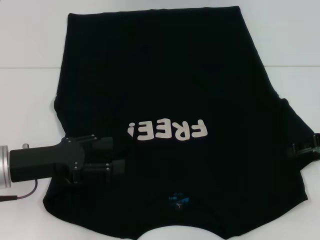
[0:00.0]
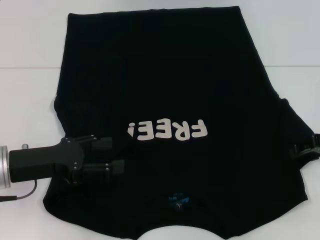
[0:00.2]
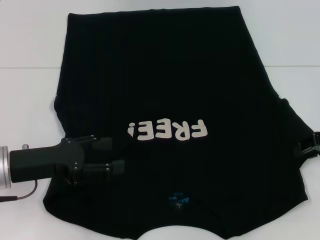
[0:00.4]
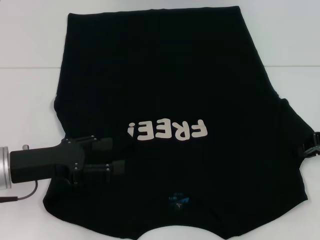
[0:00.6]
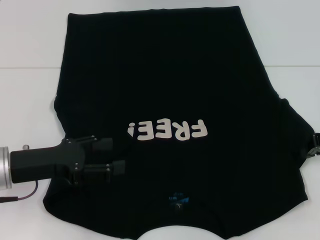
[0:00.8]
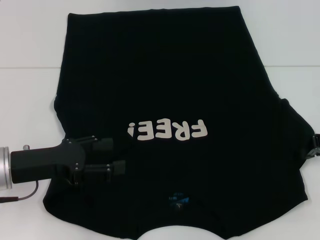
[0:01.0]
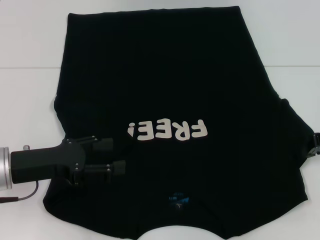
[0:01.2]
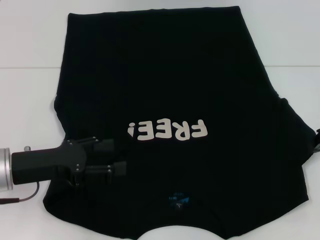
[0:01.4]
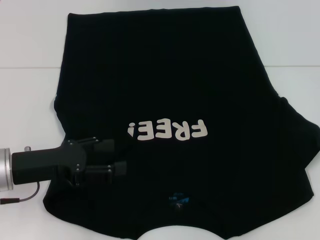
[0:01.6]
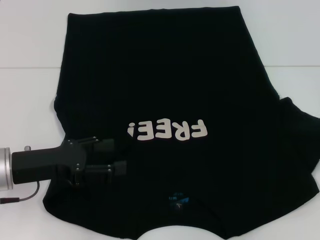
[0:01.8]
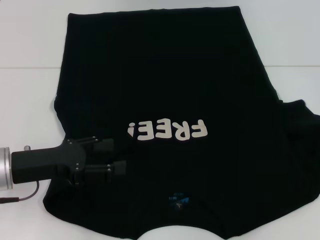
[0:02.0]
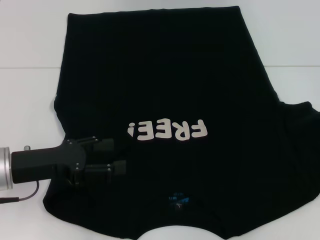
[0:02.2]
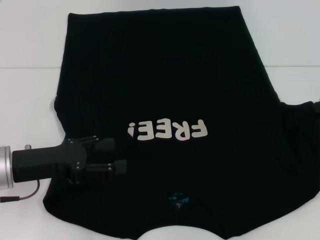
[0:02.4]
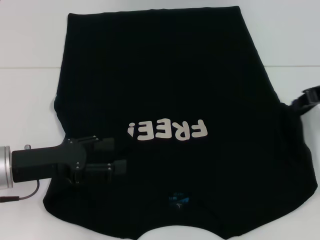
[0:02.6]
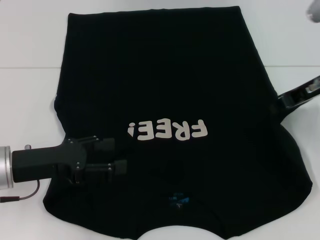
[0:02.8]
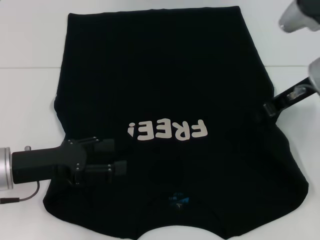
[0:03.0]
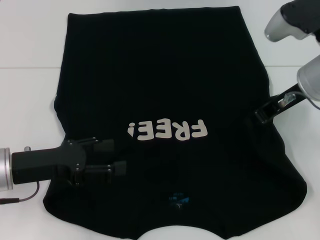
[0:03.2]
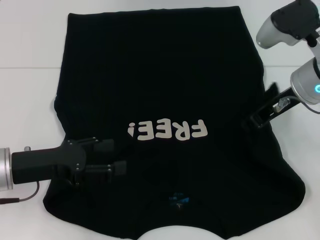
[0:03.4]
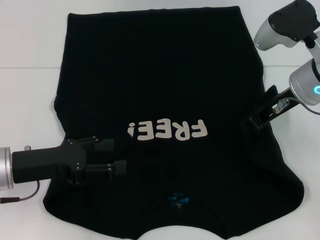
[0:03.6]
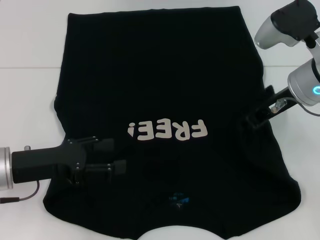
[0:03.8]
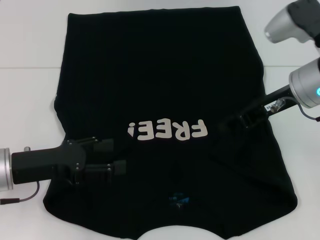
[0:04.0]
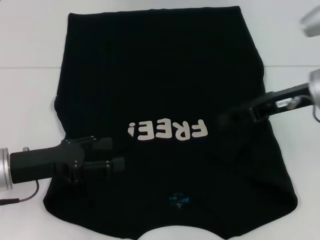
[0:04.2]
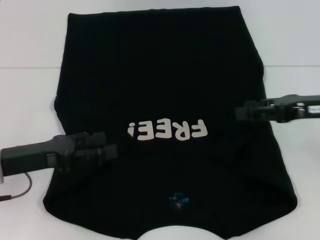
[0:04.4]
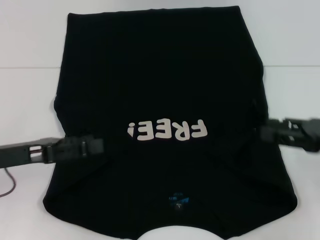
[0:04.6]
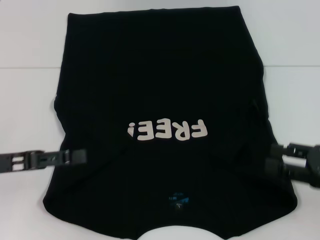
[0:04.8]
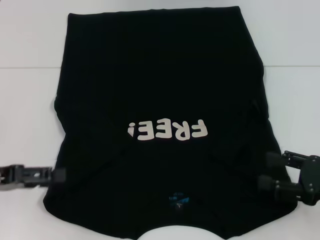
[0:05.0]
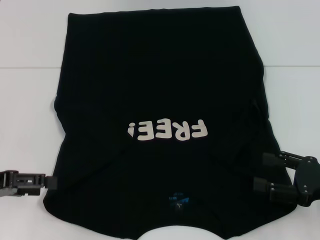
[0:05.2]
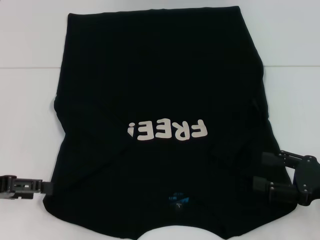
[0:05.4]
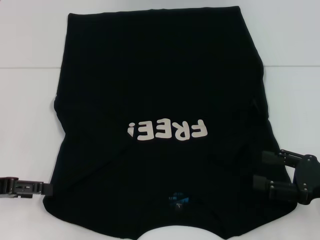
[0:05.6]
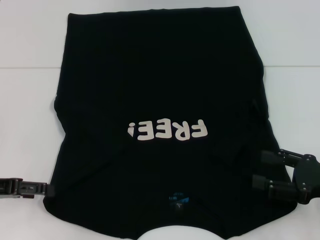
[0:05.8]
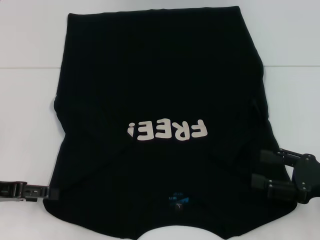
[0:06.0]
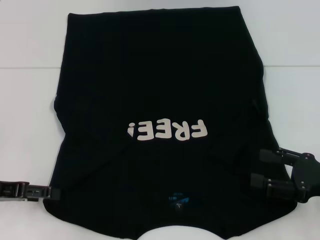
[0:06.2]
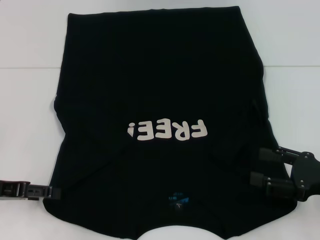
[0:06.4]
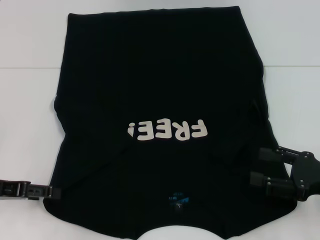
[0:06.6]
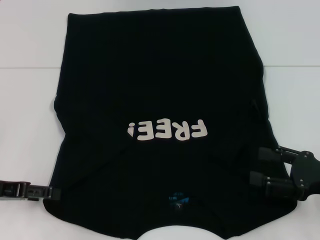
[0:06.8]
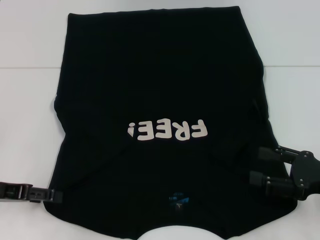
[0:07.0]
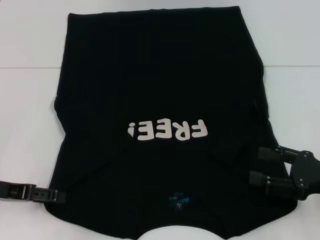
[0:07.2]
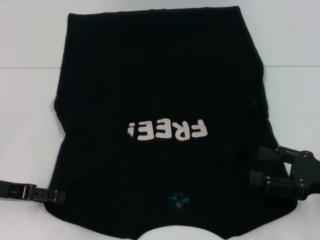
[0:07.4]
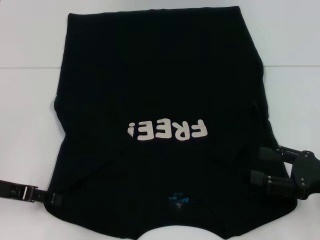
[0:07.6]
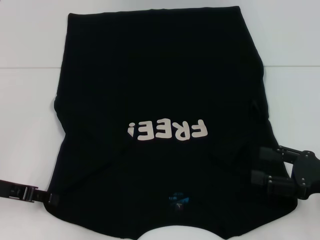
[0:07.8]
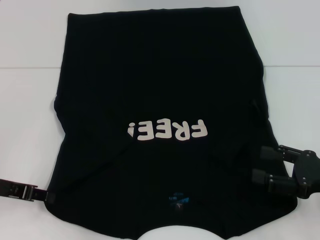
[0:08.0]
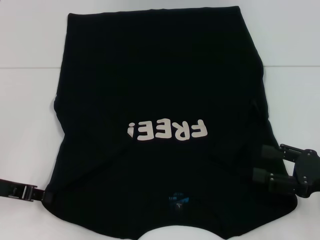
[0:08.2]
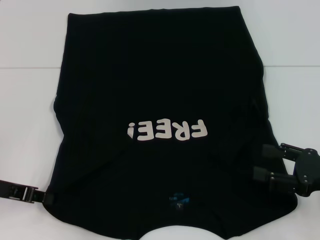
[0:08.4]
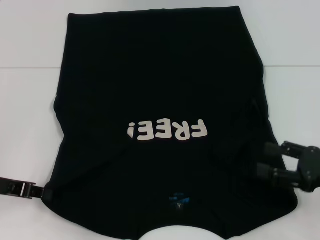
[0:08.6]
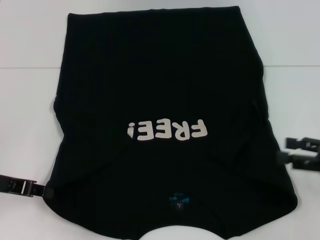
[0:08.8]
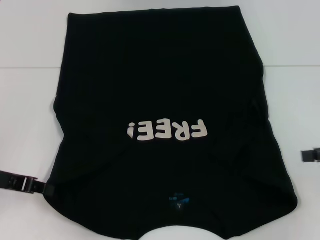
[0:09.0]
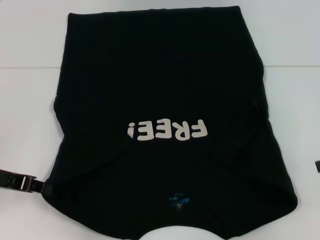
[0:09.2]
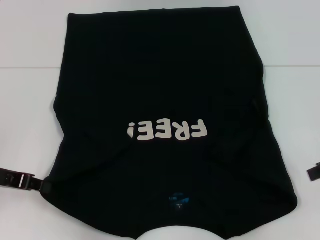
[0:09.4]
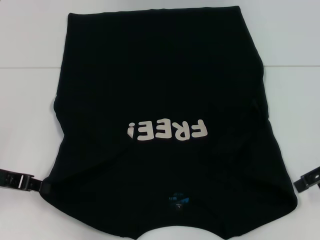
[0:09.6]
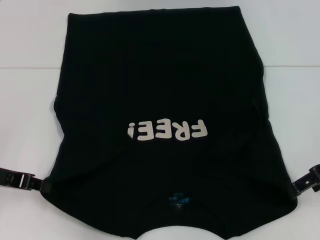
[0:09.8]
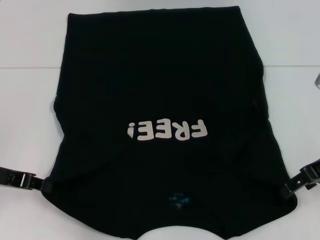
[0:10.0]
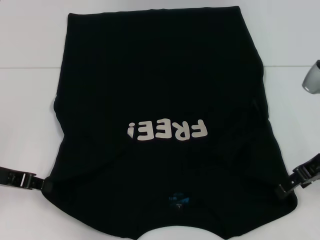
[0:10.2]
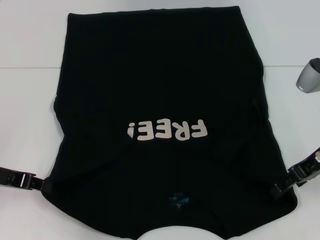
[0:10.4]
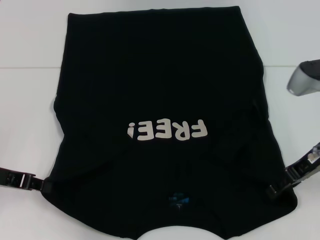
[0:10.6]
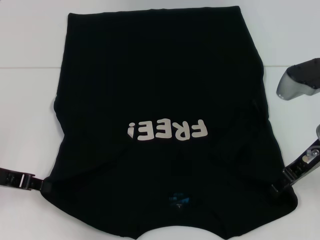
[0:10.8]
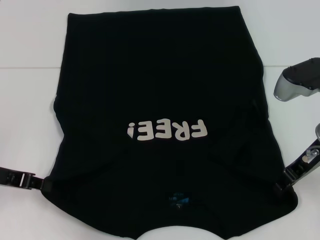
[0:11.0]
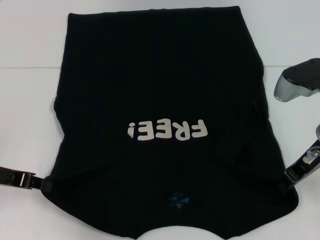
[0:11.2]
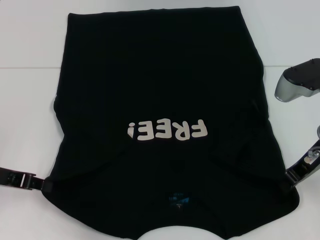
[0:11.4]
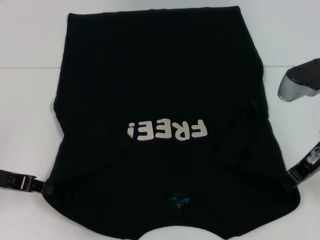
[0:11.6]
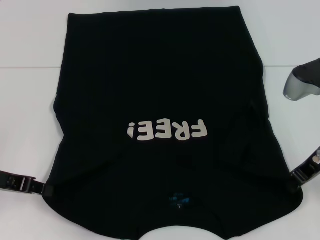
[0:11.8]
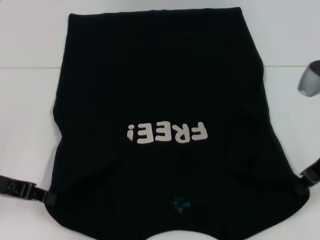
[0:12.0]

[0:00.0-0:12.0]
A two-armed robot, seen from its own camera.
Step, 0.0 to 4.2 s: Fold the bottom right sleeve with your right hand.
Step, 4.4 to 8.4 s: Grab the bottom left corner with your left hand.
Step, 8.6 to 11.8 s: Grab the bottom right corner with your right hand.
0.0 to 1.6 s: The right gripper closes its fingers.
1.6 to 3.0 s: The right gripper travels to the left and upward by approximately 15 cm.
3.0 to 4.4 s: The right gripper shifts approximately 5 cm to the right and backward, and opens.
4.4 to 6.0 s: The left gripper travels to the left by some 5 cm. Meanwhile the right gripper heads backward and downward, covering some 15 cm, and opens.
6.0 to 7.6 s: The grippers make only small movements.
7.6 to 9.0 s: The left gripper closes its fingers; the right gripper heads upward and to the right, covering roughly 10 cm.
9.0 to 10.4 s: The right gripper travels to the left and forward by about 15 cm.
10.4 to 12.0 s: The right gripper closes its fingers.

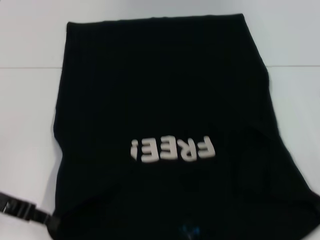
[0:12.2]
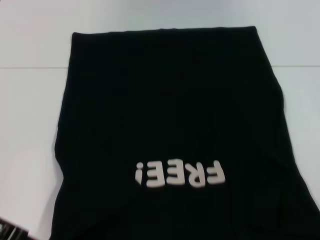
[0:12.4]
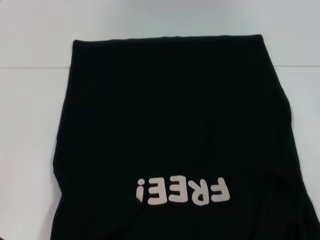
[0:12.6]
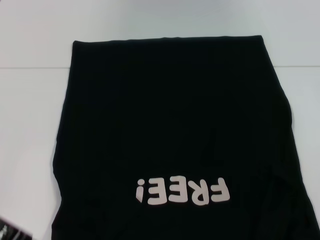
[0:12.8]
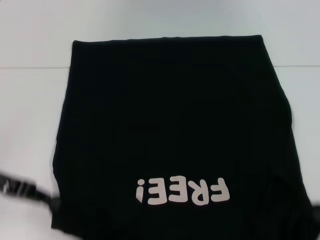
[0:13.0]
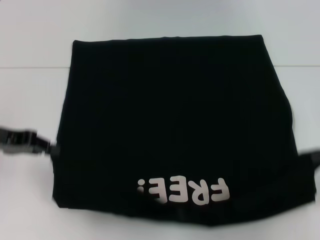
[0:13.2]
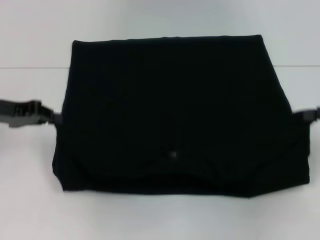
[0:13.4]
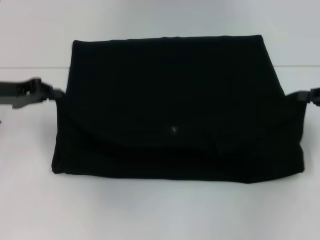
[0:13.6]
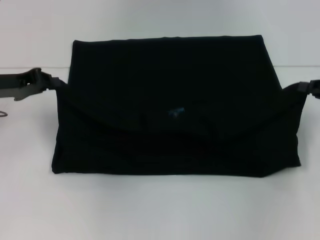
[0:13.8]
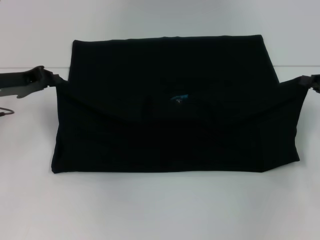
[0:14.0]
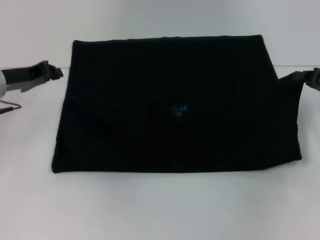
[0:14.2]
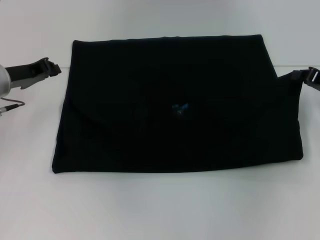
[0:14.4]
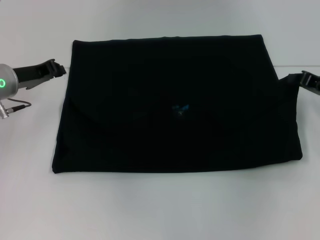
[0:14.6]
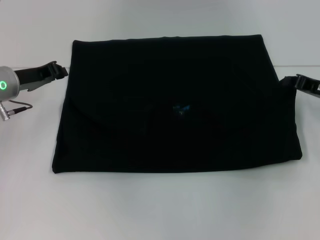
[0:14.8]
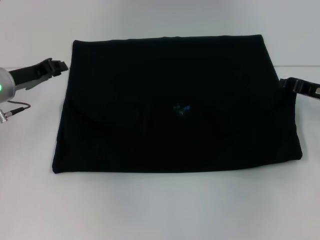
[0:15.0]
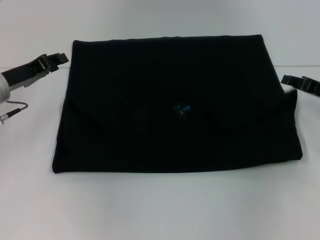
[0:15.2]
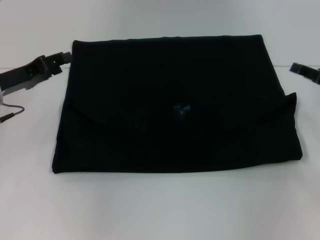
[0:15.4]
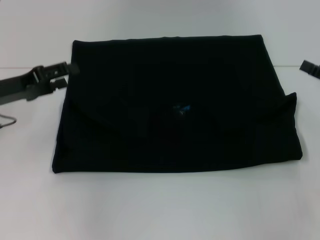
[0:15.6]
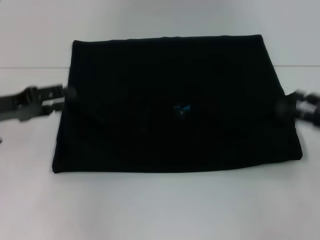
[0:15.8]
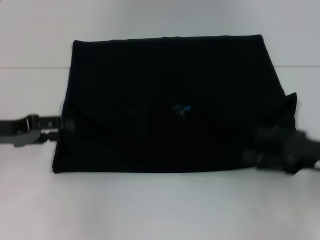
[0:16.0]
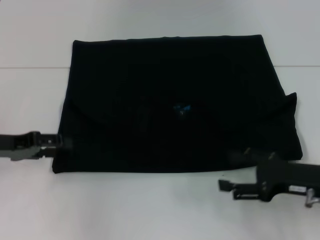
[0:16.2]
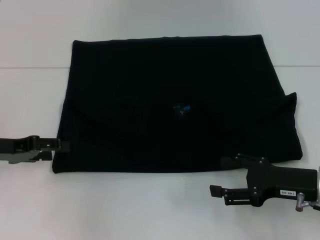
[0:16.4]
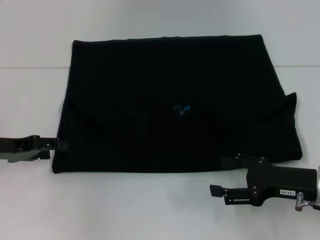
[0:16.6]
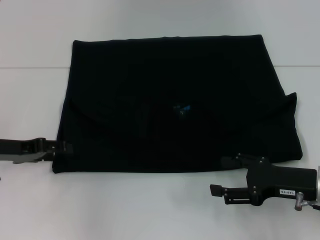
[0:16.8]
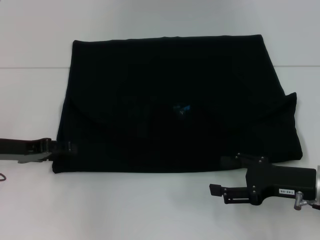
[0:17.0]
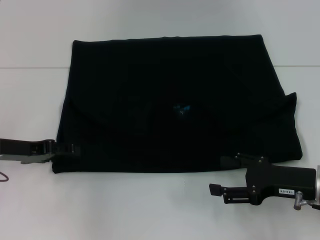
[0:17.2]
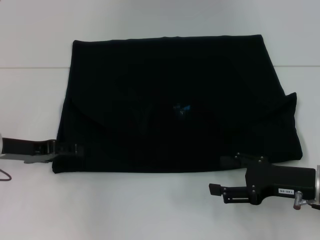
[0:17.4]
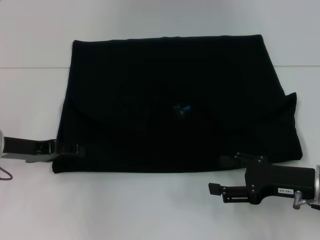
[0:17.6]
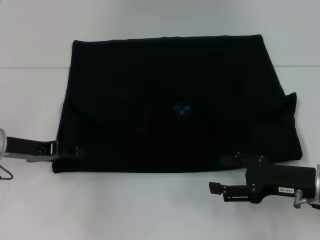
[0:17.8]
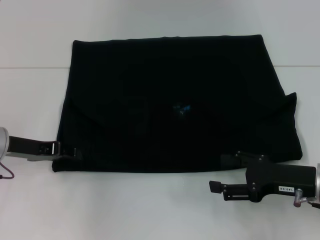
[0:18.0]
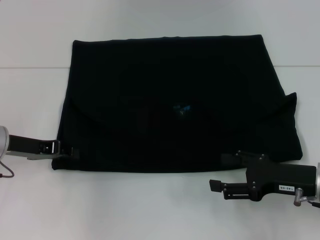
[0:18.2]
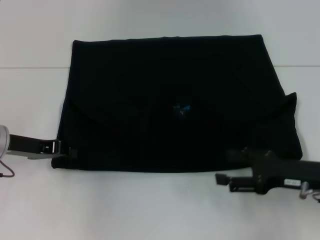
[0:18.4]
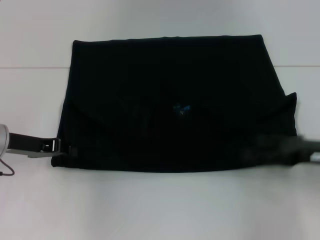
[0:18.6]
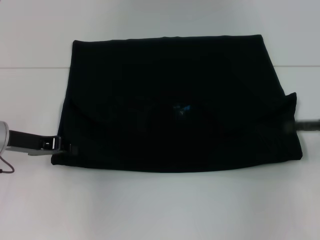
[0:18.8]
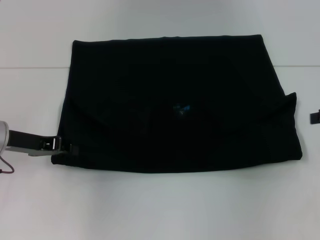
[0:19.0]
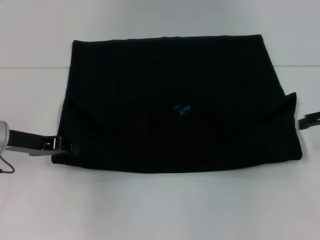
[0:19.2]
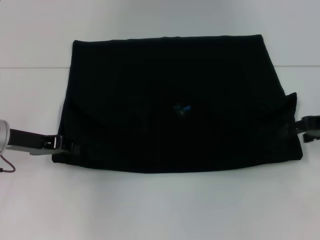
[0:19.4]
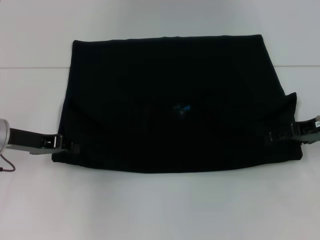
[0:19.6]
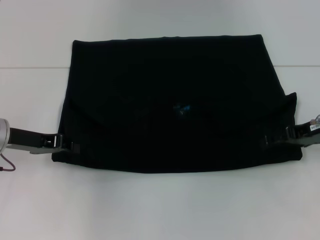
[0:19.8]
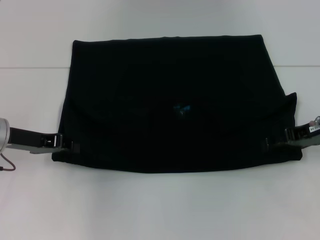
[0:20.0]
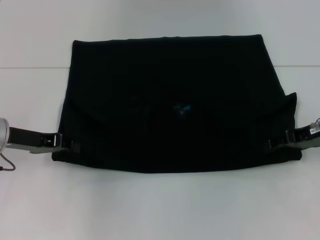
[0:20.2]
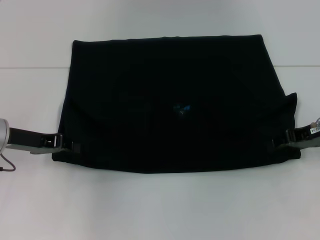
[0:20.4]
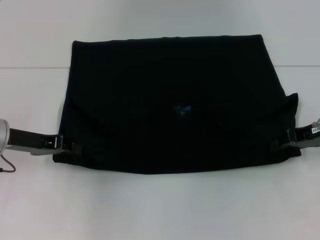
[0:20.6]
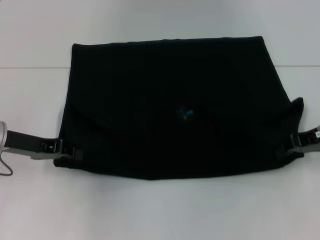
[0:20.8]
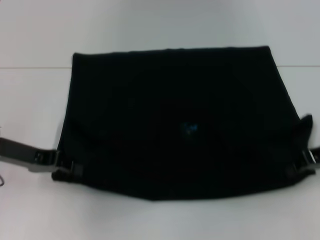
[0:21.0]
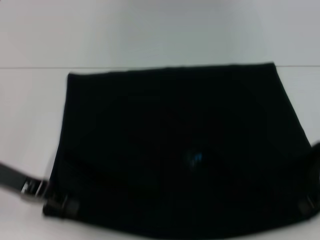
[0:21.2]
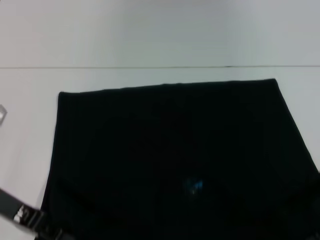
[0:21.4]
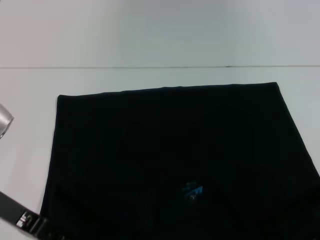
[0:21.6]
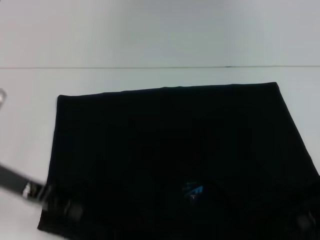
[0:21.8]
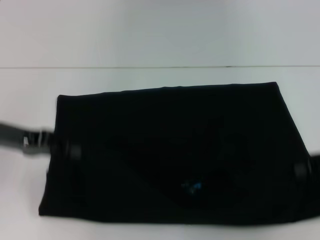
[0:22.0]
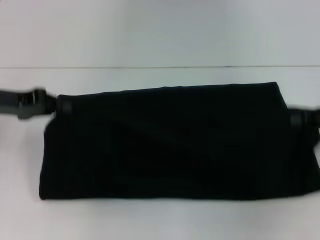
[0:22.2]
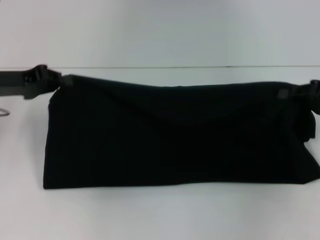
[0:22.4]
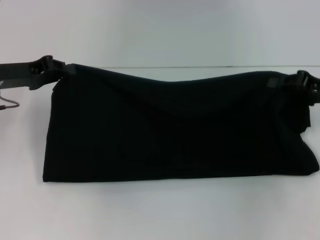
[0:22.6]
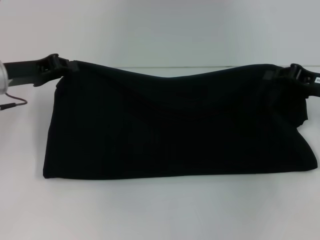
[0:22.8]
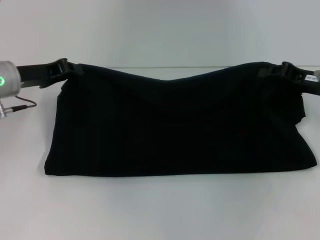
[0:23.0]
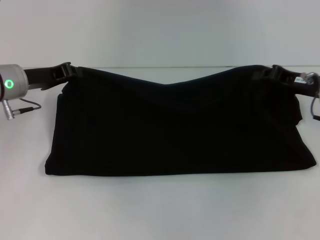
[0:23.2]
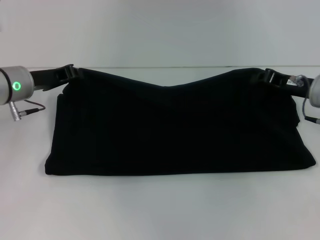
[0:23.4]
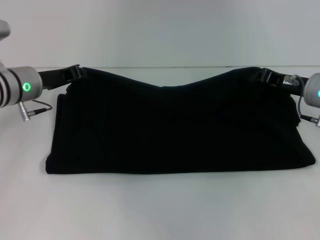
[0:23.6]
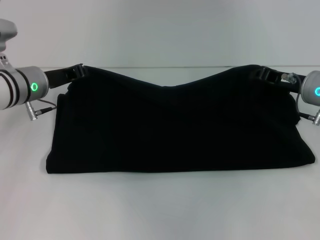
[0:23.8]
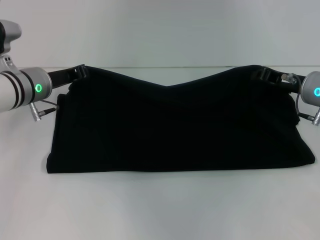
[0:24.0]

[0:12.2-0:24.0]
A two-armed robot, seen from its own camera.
Step, 12.2 to 15.2 s: Fold the clothes with your left hand.
Step, 12.2 to 15.2 s: Fold the clothes with your right hand.
Step, 15.4 to 21.6 s: Pull the clothes with your left hand.
Step, 15.4 to 21.6 s: Pull the clothes with your right hand.
12.2 to 13.6 s: The right gripper moves to the right, some 5 cm. Meanwhile the left gripper travels forward by some 10 cm.
13.6 to 15.2 s: The right gripper shifts by roughly 5 cm.
15.2 to 16.6 s: The left gripper shifts about 5 cm backward, and opens its fingers. The right gripper goes about 10 cm backward and to the left, and opens up.
16.6 to 18.2 s: The left gripper closes.
18.2 to 19.6 s: The right gripper is displaced forward and upward by roughly 10 cm, and moves some 10 cm to the right and comes back.
19.6 to 21.0 s: The right gripper closes.
21.0 to 22.6 s: The left gripper goes about 5 cm forward; the right gripper goes backward and returns, approximately 5 cm each way.
22.6 to 24.0 s: The right gripper shifts some 5 cm to the left. The left gripper shifts some 5 cm to the right.
